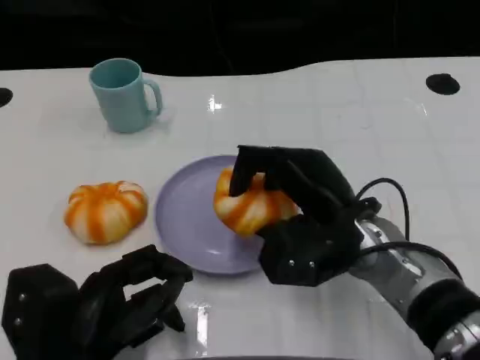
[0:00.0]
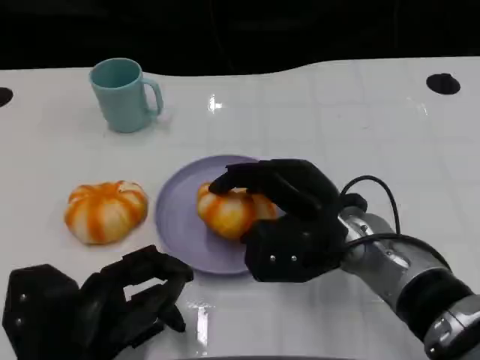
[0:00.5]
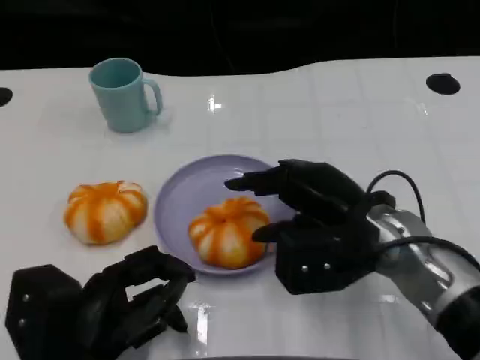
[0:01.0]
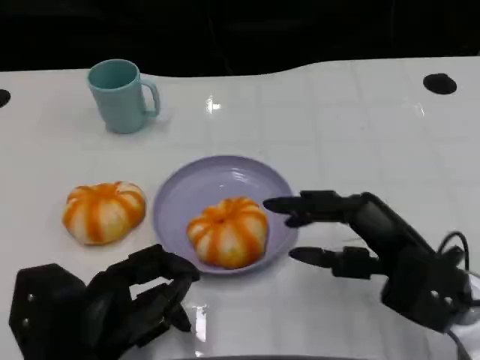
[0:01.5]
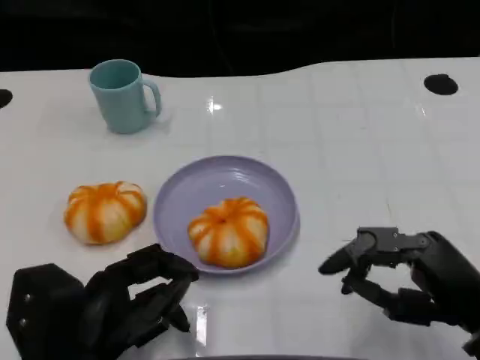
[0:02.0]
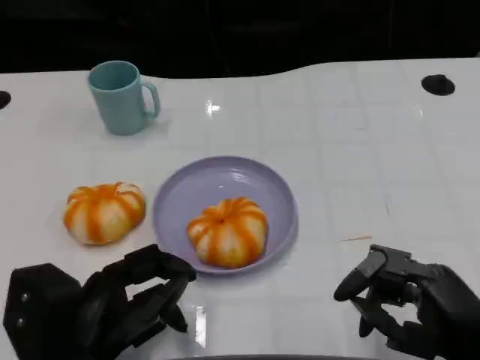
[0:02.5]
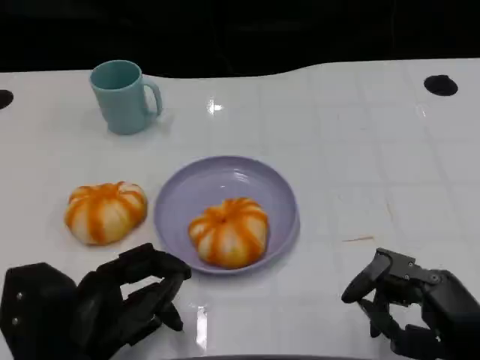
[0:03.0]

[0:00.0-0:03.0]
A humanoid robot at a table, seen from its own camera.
Task of the whole recording: Grasp the bread from the table and place it into the plate.
0:00.0 to 0:01.5: The right hand moves to the right and backward, about 10 cm.
0:01.5 to 0:03.0: The right hand shifts roughly 5 cm backward.
